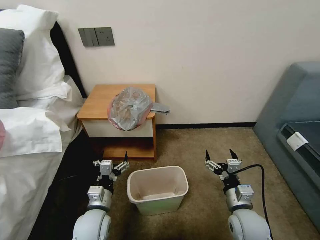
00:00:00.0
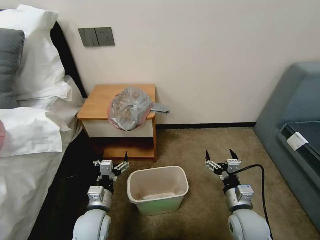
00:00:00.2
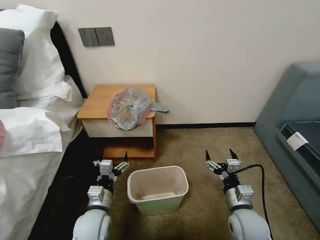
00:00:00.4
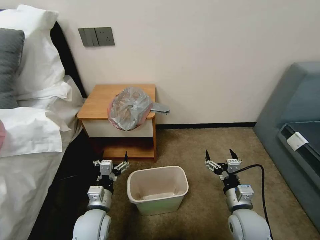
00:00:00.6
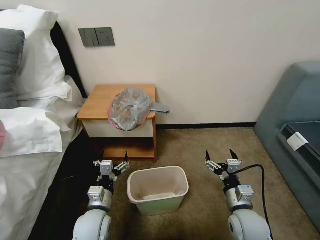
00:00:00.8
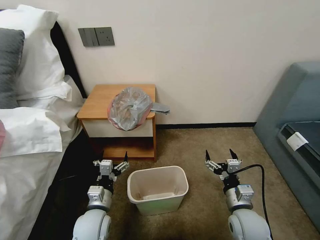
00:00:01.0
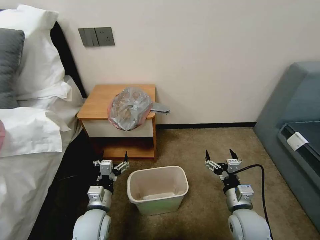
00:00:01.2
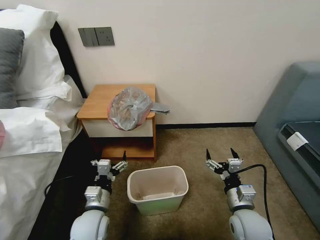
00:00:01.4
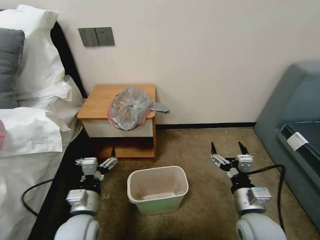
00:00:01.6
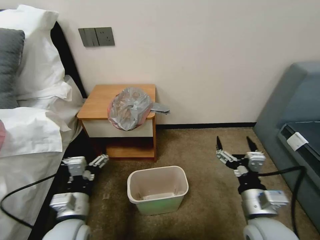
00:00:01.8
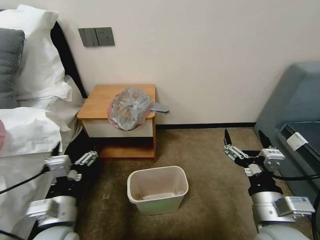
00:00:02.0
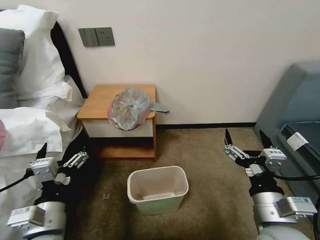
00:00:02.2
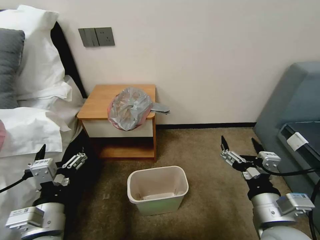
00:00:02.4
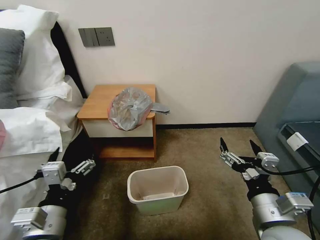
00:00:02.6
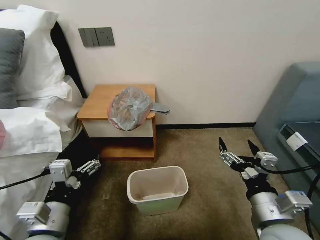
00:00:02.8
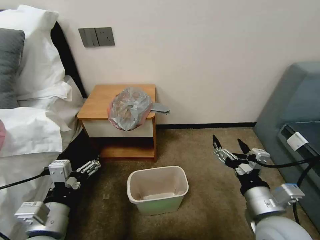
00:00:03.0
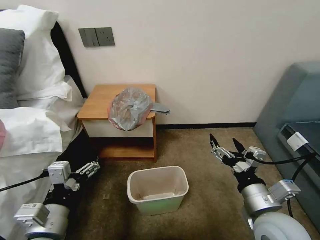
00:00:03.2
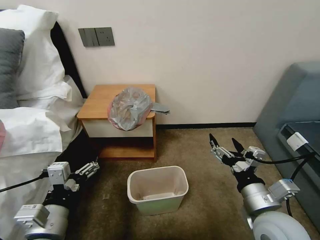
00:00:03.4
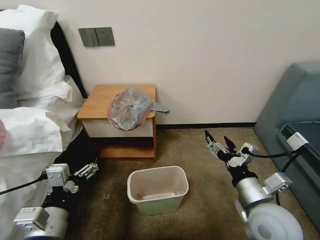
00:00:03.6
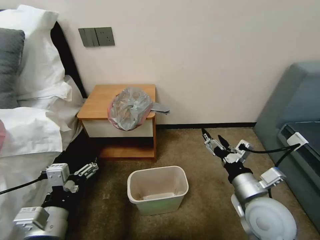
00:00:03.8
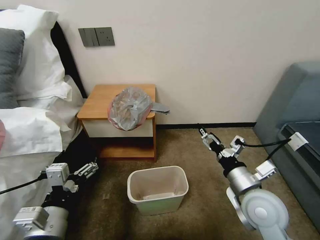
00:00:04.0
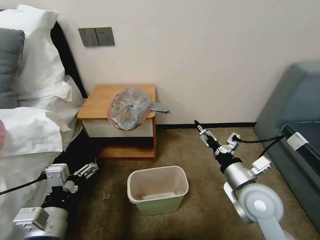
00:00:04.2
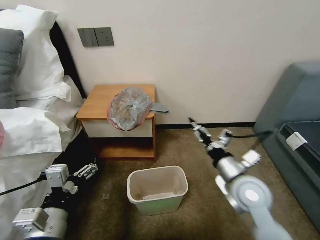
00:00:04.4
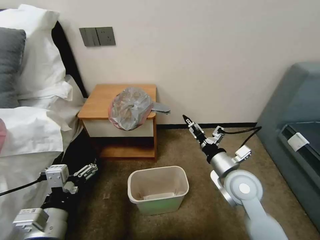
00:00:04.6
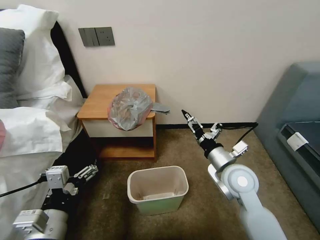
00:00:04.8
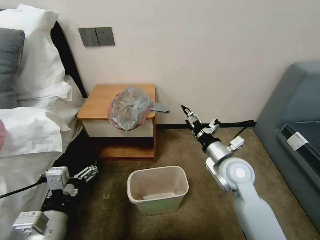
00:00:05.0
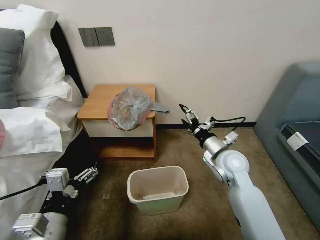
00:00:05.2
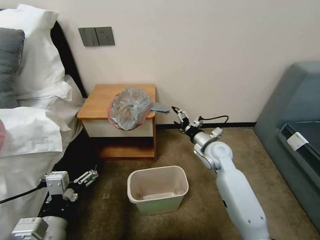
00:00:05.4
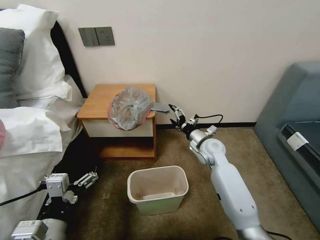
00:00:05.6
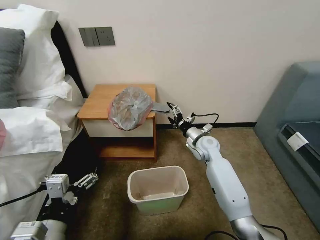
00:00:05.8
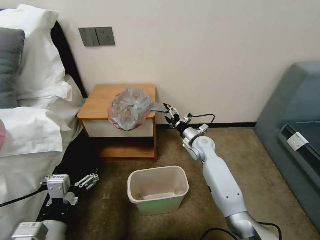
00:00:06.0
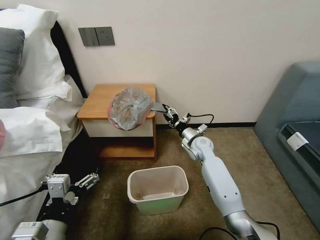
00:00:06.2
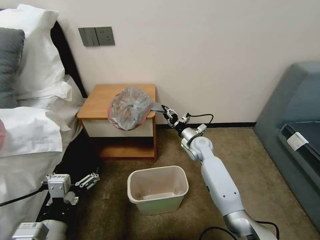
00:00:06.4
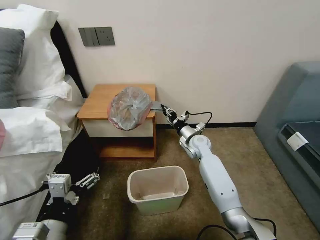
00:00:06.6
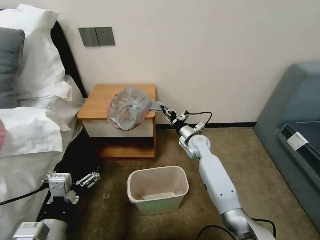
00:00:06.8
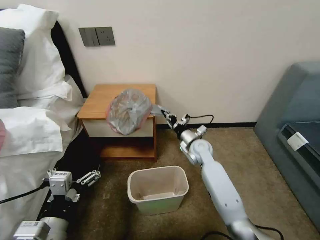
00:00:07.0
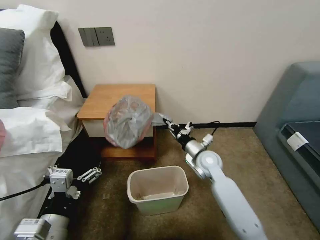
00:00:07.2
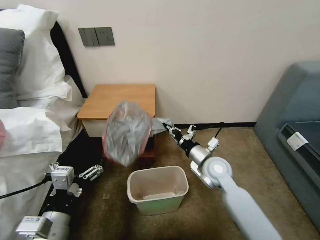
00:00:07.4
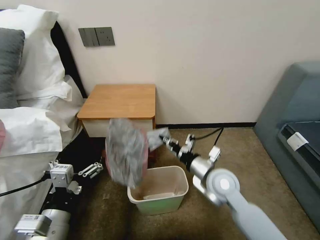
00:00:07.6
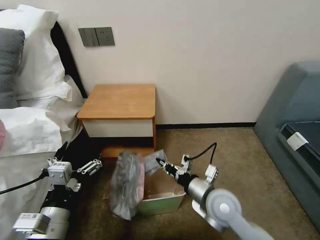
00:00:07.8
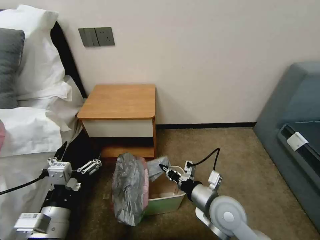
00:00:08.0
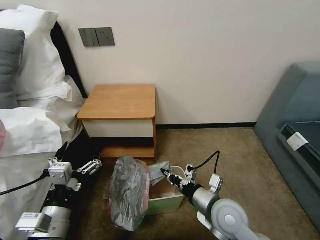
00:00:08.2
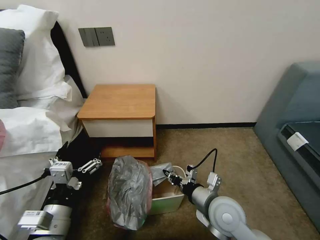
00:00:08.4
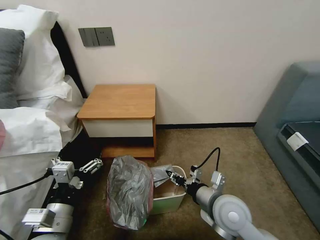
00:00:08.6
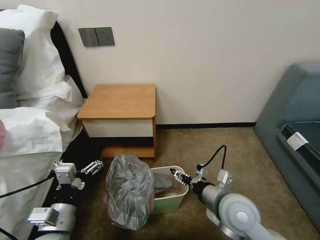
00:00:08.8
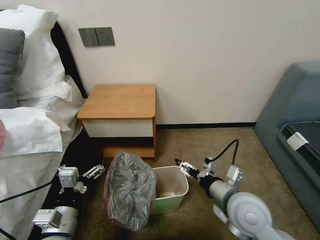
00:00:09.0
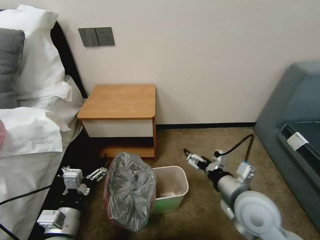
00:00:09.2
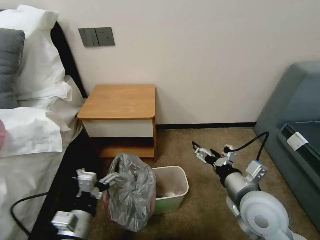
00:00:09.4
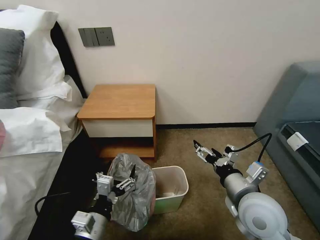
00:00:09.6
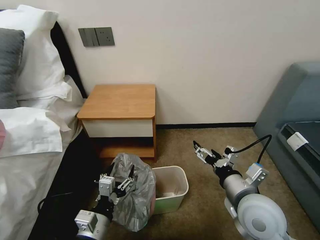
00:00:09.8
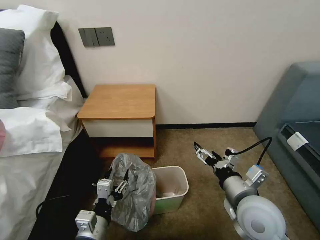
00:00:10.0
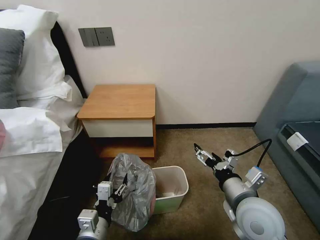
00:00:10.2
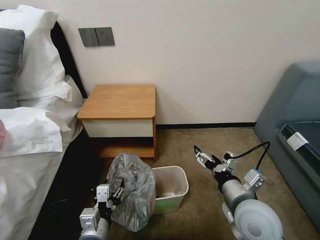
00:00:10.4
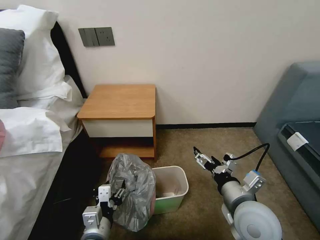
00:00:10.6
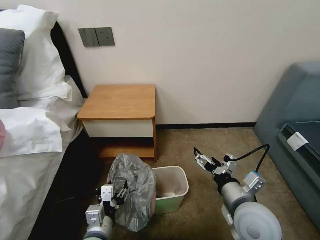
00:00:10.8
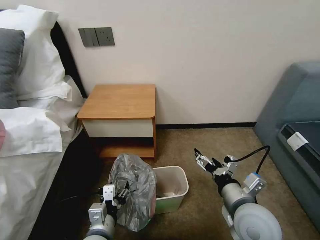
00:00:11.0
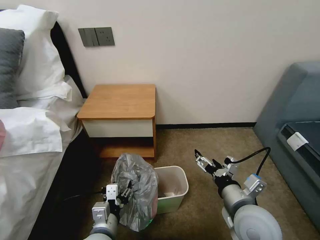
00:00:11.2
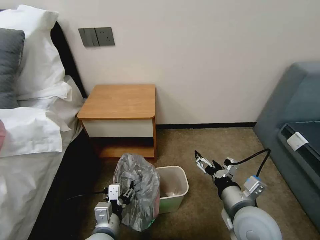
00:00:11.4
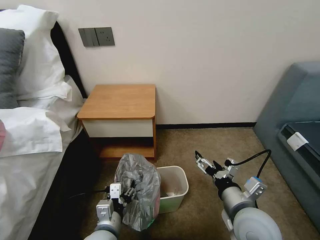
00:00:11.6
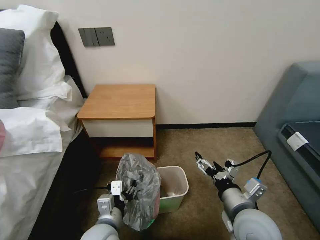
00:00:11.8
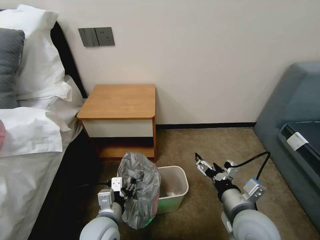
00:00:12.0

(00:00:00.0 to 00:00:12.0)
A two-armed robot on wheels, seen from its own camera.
Task of the whole recording: Pick up the garbage bag from the table and place it over the trash can.
00:00:01.6 - 00:00:03.0: The left gripper shifts roughly 10 cm upward and backward, while the right gripper moves upward, approximately 10 cm.
00:00:03.0 - 00:00:04.4: The right gripper shifts roughly 10 cm forward.
00:00:04.4 - 00:00:06.0: The right gripper is displaced forward and downward by about 25 cm.
00:00:06.0 - 00:00:07.6: The right gripper goes roughly 20 cm backward, and closes.
00:00:07.6 - 00:00:09.0: The left gripper moves downward, roughly 5 cm. Meanwhile the right gripper travels backward by about 5 cm, and opens up.
00:00:09.0 - 00:00:10.4: The left gripper travels to the right by roughly 5 cm, and closes its fingers.
00:00:10.4 - 00:00:12.0: The left gripper moves forward, approximately 5 cm.

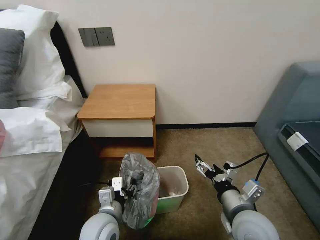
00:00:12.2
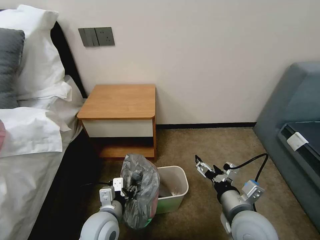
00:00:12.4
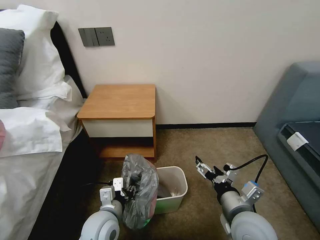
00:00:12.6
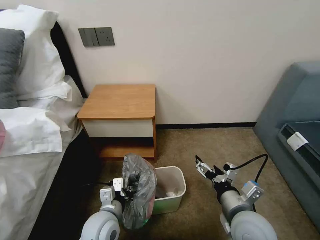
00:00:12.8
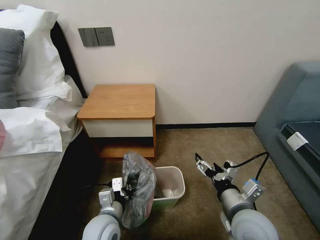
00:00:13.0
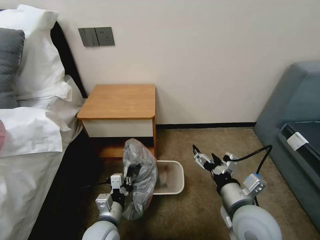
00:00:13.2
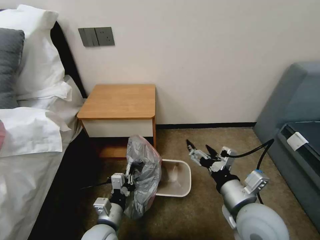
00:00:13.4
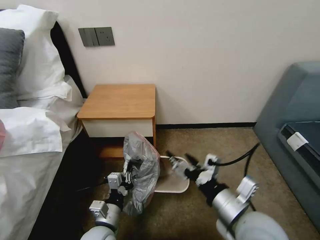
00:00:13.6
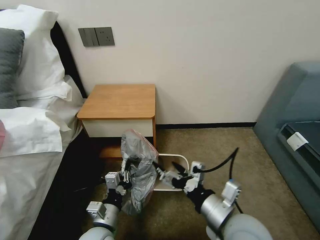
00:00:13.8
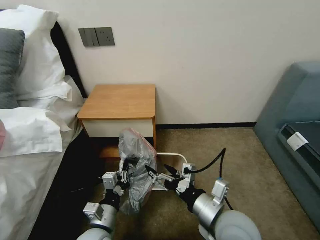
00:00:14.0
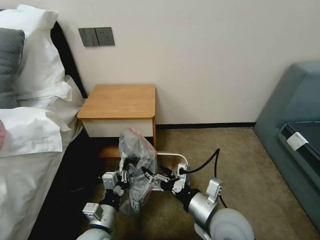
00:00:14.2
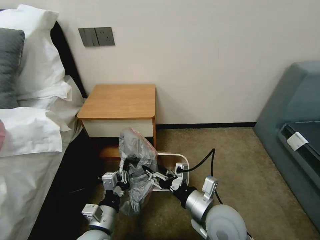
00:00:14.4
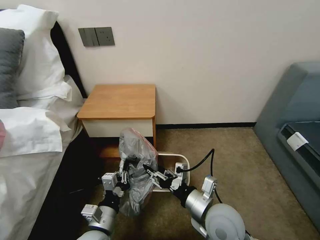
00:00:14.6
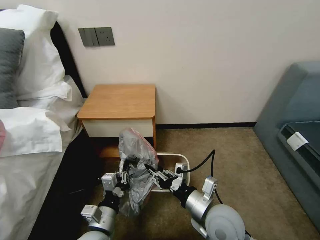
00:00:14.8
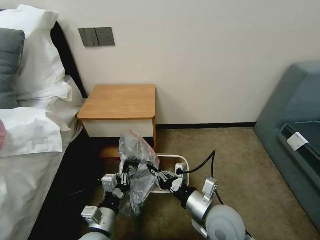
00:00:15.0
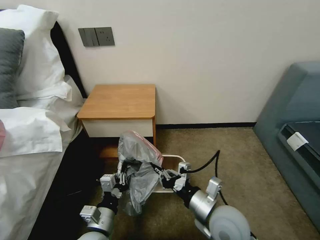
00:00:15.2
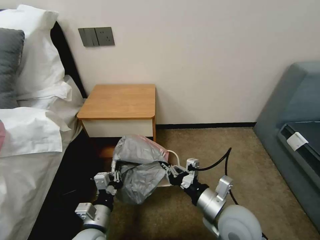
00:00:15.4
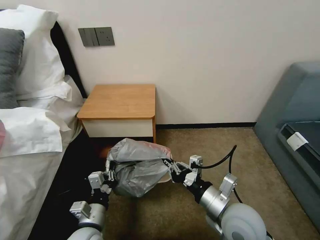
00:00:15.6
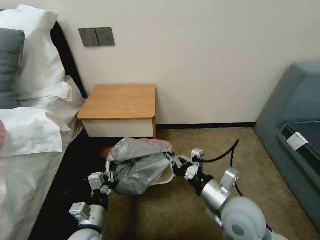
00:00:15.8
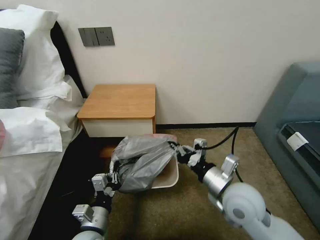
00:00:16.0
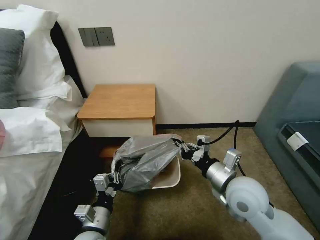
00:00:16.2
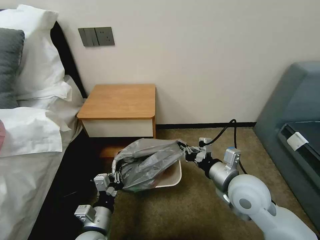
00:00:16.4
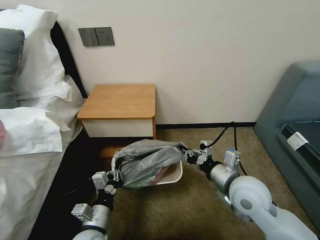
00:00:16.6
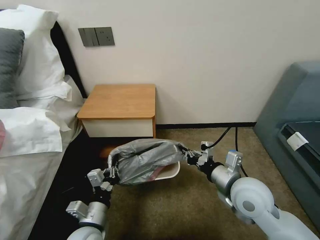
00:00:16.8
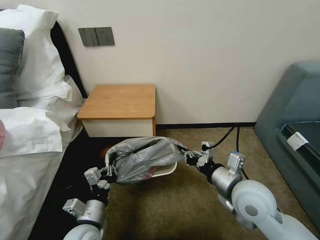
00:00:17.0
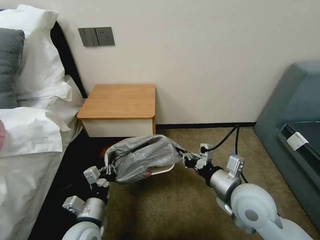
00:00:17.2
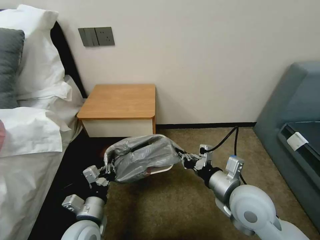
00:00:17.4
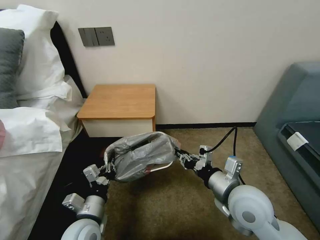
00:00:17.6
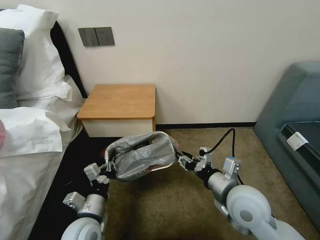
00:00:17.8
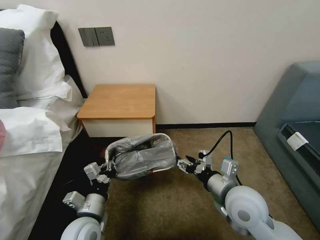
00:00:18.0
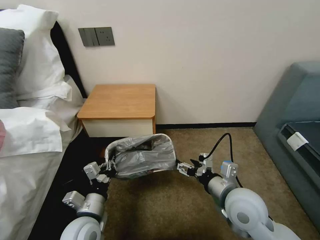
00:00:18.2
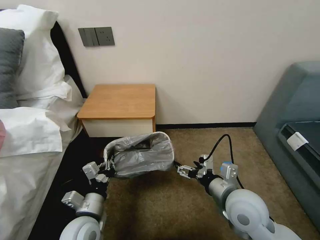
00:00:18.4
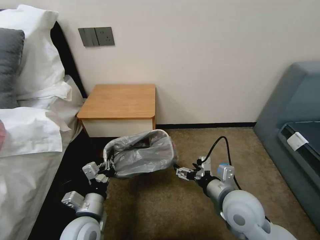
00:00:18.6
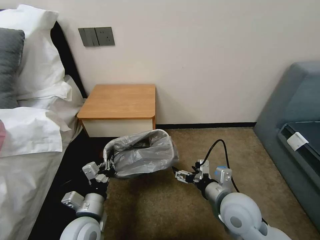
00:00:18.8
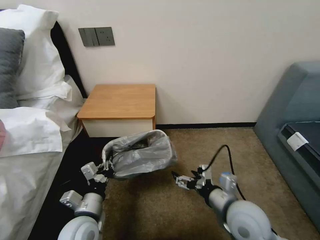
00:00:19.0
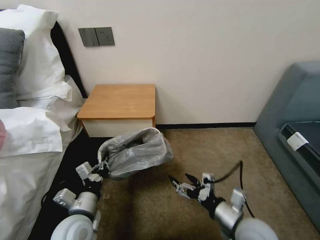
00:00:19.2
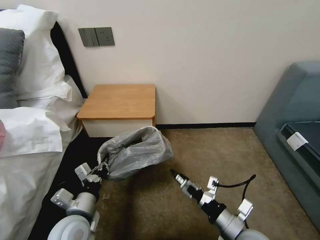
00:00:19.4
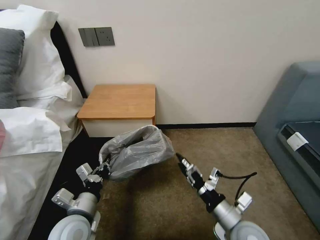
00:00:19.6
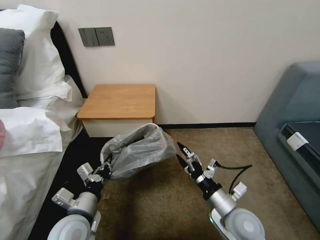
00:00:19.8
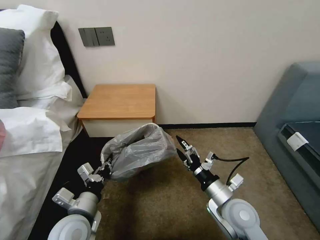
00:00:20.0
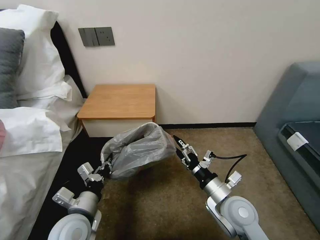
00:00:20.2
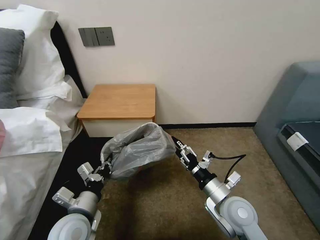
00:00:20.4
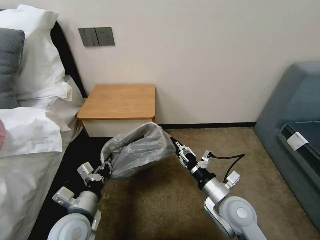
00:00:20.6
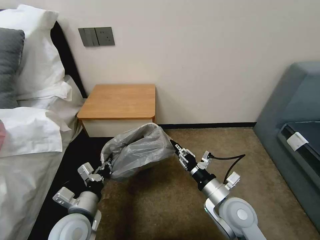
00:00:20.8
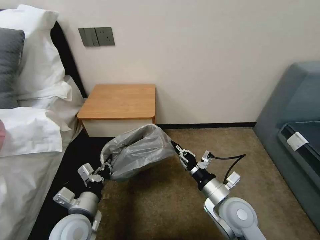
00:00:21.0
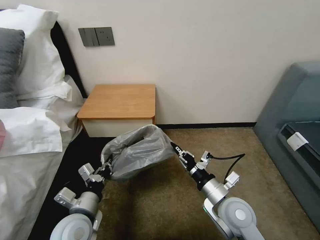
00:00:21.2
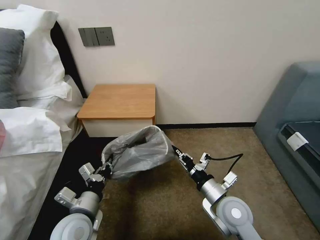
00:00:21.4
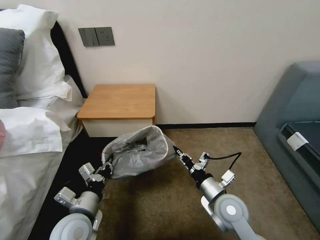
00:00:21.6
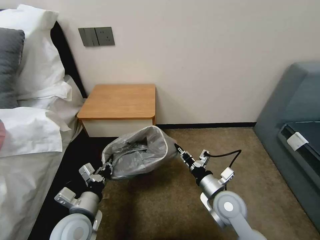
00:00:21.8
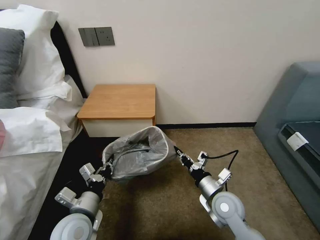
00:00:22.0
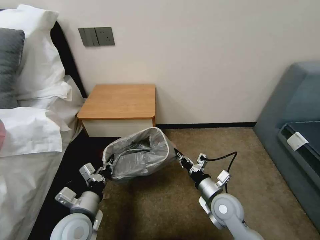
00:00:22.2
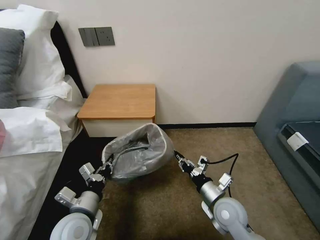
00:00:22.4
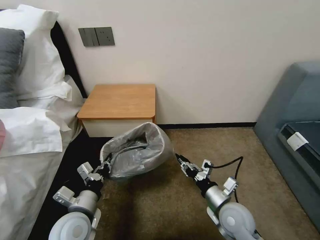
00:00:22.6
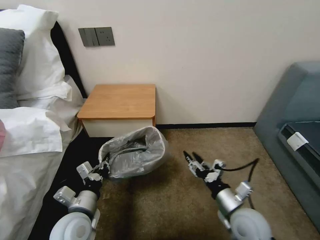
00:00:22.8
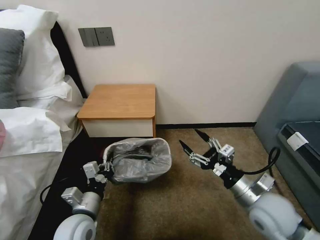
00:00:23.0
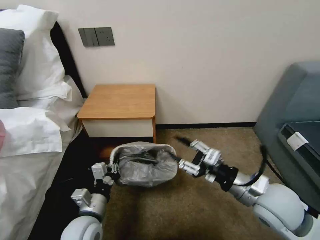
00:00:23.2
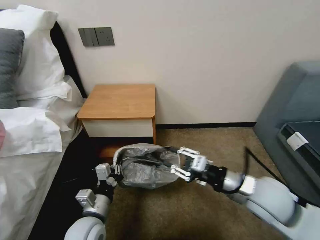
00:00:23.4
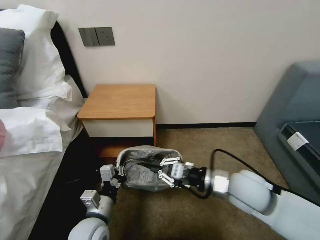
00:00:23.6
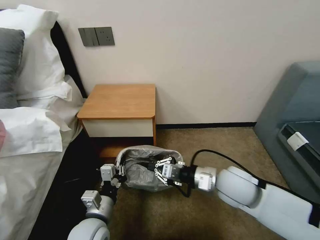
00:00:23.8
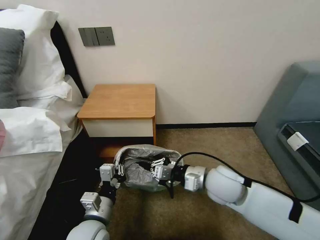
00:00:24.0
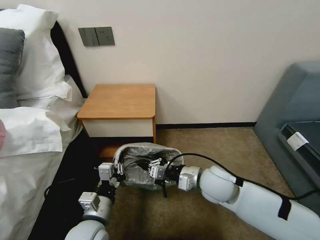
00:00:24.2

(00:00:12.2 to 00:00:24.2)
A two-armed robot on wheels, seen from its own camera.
Task of the whole recording: Pick up the garbage bag from the table and place it over the trash can.
00:00:12.2 - 00:00:13.8: The right gripper shifts by roughly 5 cm; the left gripper closes.
00:00:13.8 - 00:00:15.2: The right gripper goes approximately 5 cm downward, and closes up.
00:00:15.2 - 00:00:16.6: The right gripper moves forward and to the right, approximately 10 cm.
00:00:16.6 - 00:00:18.2: The right gripper opens its fingers.
00:00:18.2 - 00:00:19.8: The right gripper heads downward, covering approximately 5 cm.
00:00:19.8 - 00:00:21.2: The right gripper closes its fingers.
00:00:21.2 - 00:00:22.6: The right gripper heads downward, covering some 5 cm, and opens.
00:00:22.6 - 00:00:24.2: The right gripper travels upward, forward and to the left by roughly 15 cm, and closes. Meanwhile the left gripper moves to the right, approximately 5 cm.
